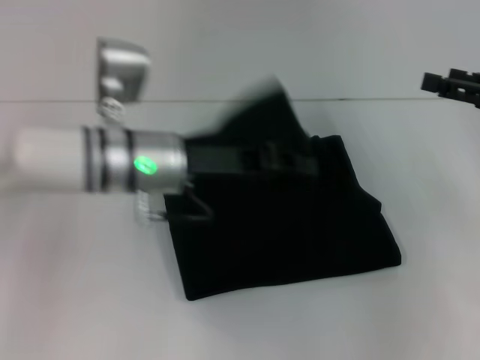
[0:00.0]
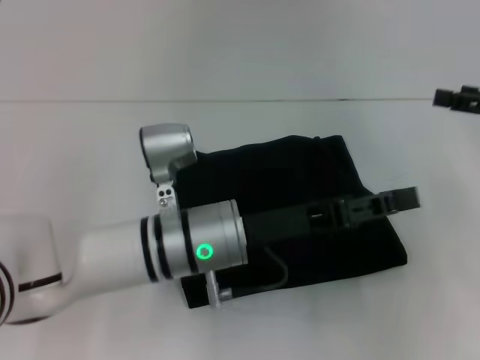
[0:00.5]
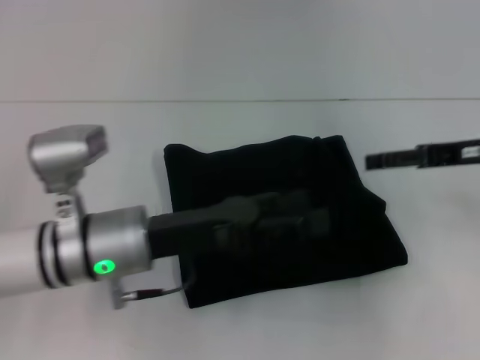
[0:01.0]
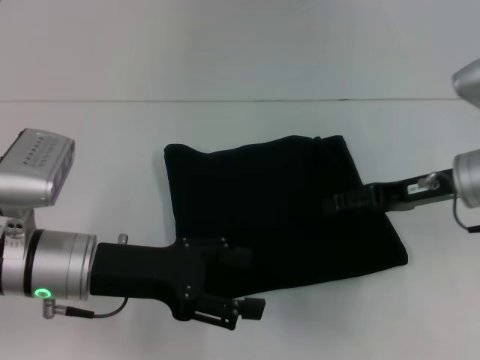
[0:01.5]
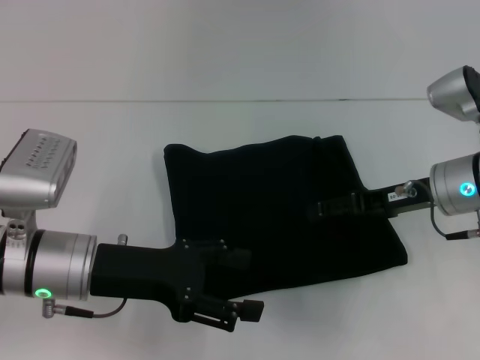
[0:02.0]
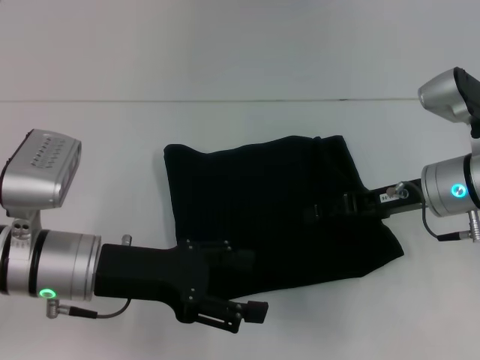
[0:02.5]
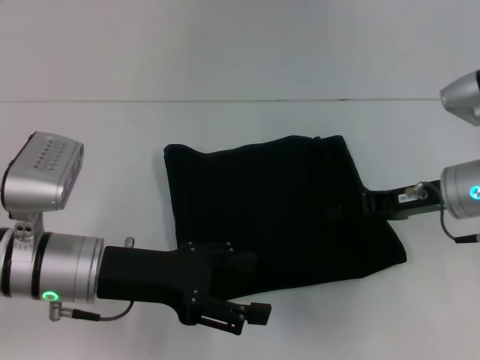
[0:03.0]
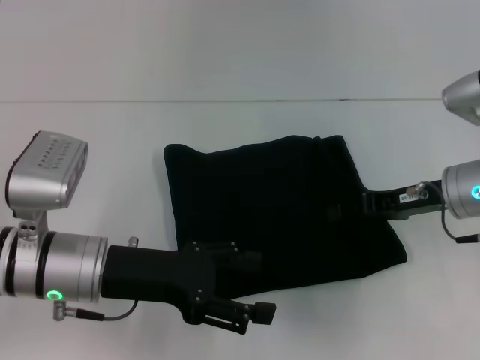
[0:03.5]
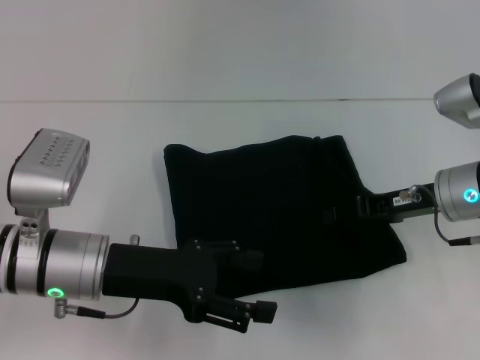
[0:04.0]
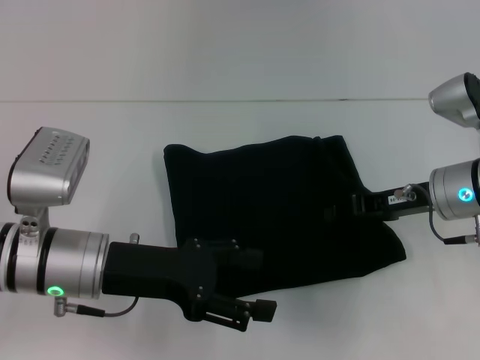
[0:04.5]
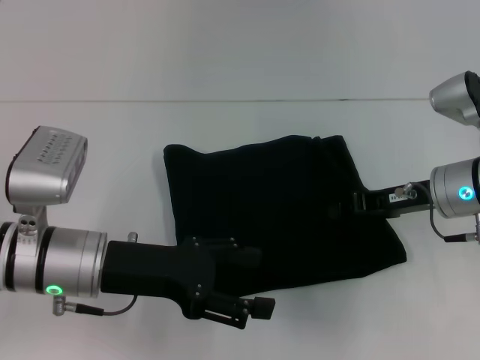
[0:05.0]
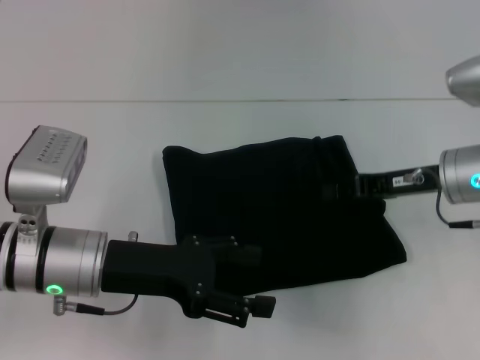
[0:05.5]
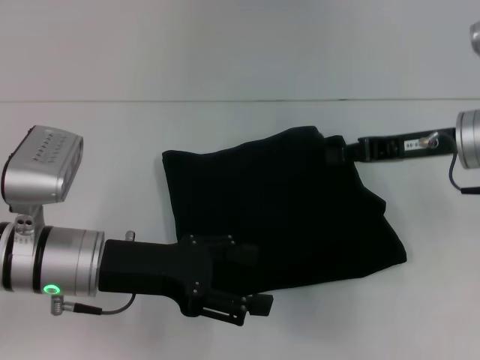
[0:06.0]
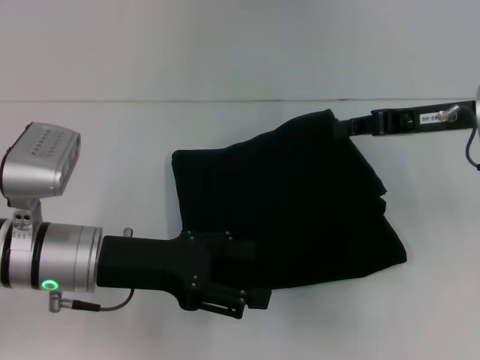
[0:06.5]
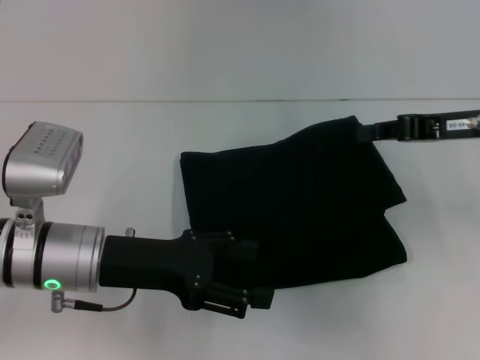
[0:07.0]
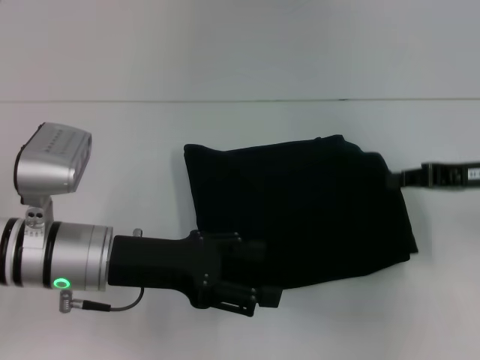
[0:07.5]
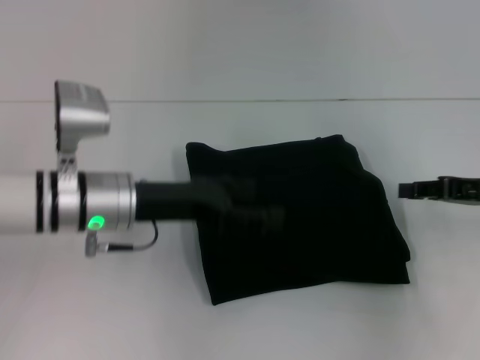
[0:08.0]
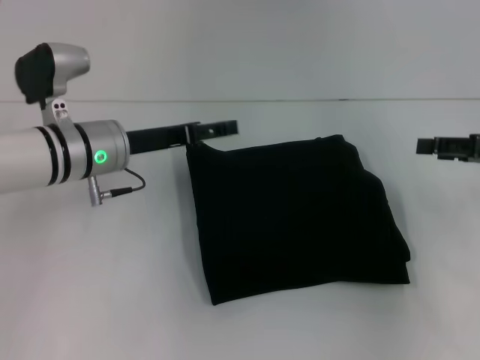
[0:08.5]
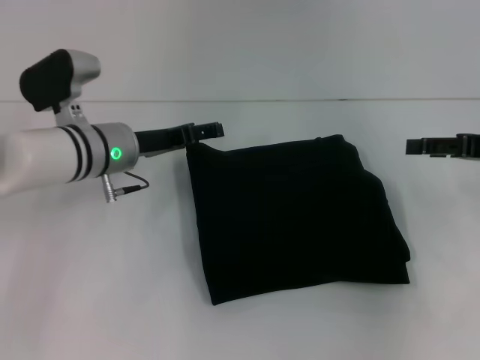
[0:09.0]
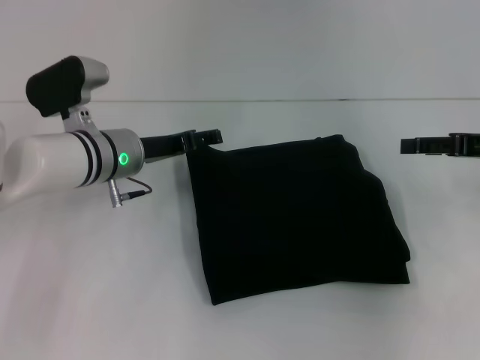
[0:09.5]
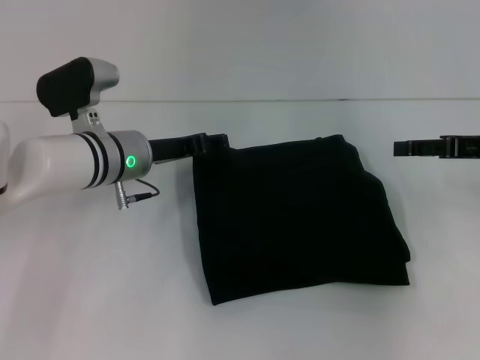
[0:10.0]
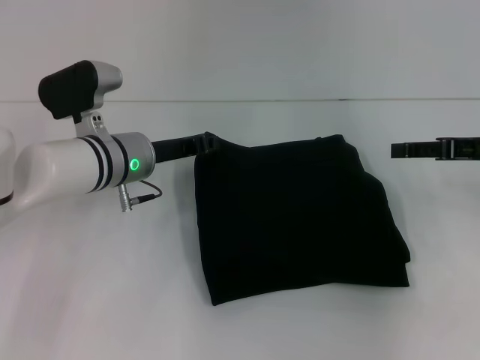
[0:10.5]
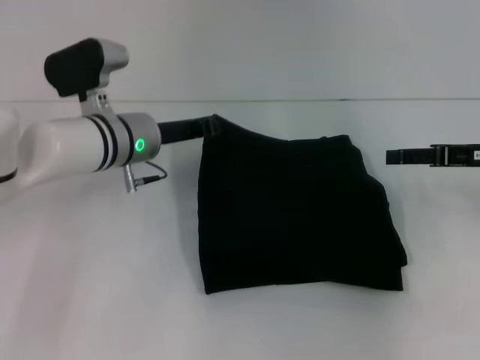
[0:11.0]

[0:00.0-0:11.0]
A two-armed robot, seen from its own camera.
0:00.0 to 0:02.0: The left gripper goes approximately 10 cm backward and to the left, and opens up. Meanwhile the right gripper travels to the left and downward by roughly 15 cm.
0:02.0 to 0:03.5: The right gripper closes up.
0:03.5 to 0:05.5: The grippers stay close to where they were, moving slightly.
0:05.5 to 0:07.5: The right gripper shifts approximately 5 cm to the right.
0:07.5 to 0:09.0: The right gripper opens up, while the left gripper travels forward by roughly 10 cm.
0:09.0 to 0:11.0: The left gripper closes up.

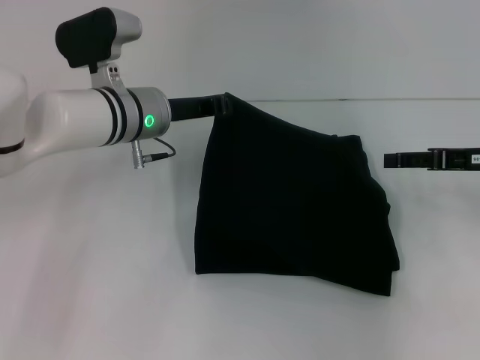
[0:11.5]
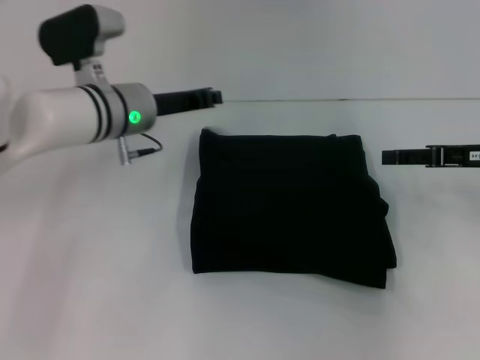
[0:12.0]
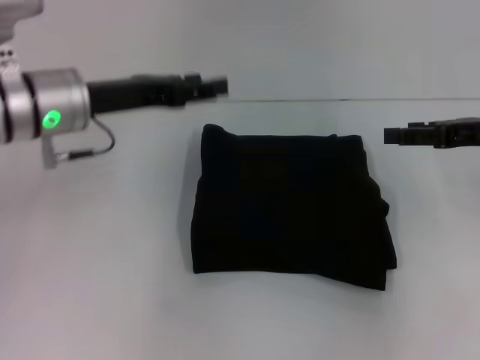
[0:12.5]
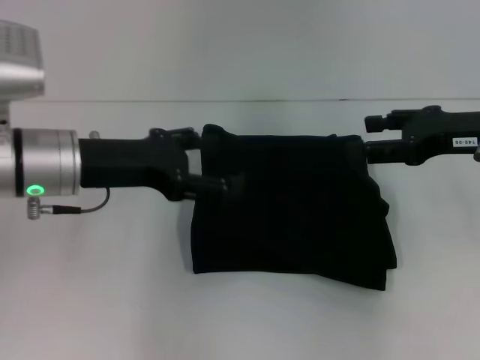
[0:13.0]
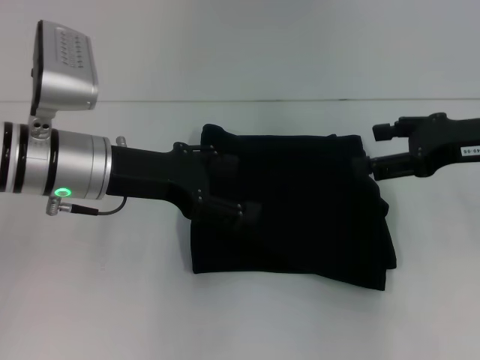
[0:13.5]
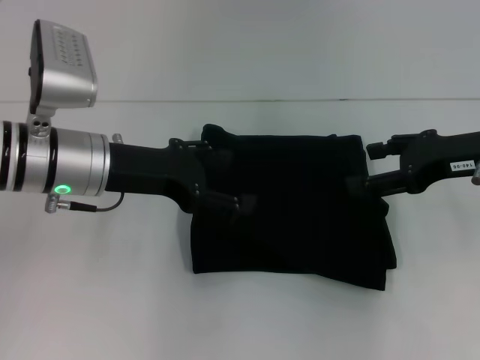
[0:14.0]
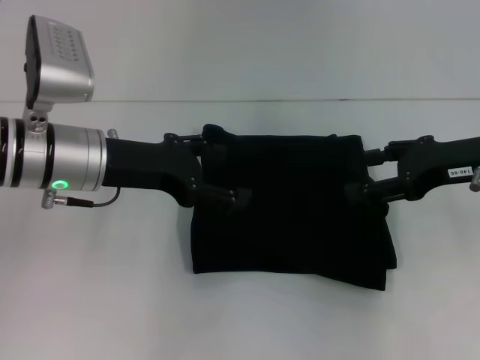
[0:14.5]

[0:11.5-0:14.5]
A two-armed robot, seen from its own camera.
0:11.5 to 0:13.0: The right gripper changes place by roughly 5 cm; the left gripper goes roughly 10 cm backward and to the left, and opens.
0:13.0 to 0:14.5: The grippers stay close to where they were, moving slightly.
